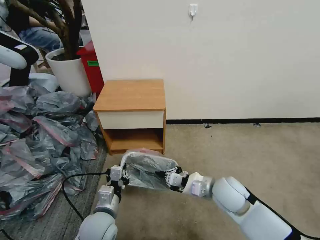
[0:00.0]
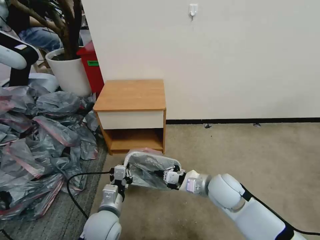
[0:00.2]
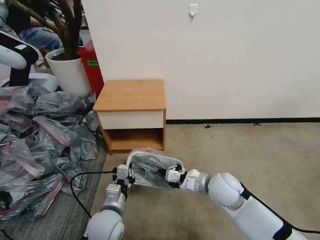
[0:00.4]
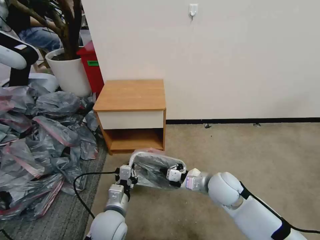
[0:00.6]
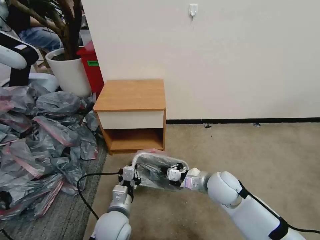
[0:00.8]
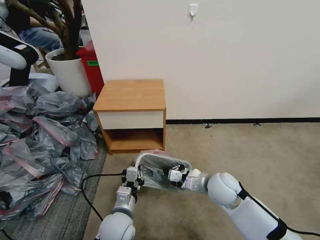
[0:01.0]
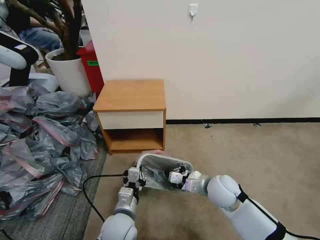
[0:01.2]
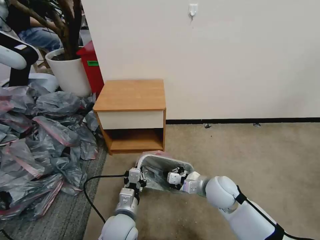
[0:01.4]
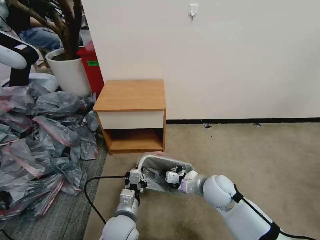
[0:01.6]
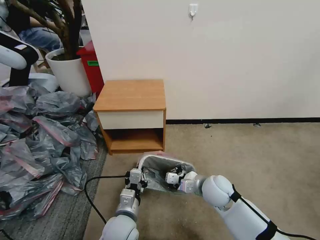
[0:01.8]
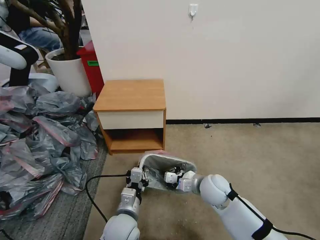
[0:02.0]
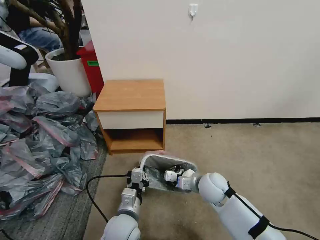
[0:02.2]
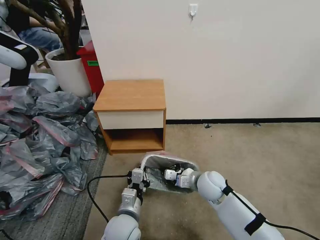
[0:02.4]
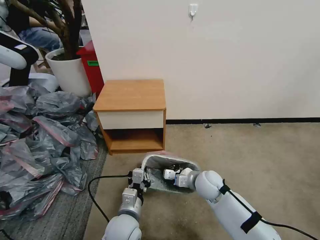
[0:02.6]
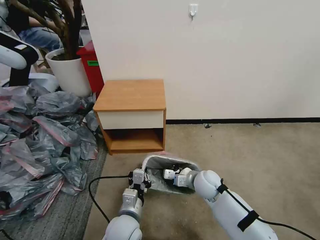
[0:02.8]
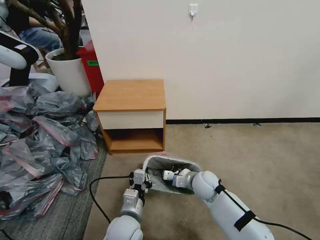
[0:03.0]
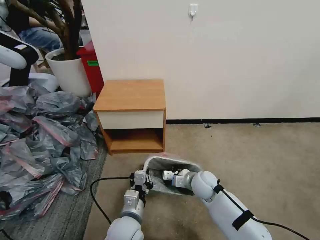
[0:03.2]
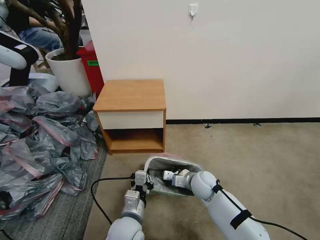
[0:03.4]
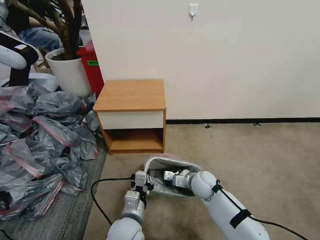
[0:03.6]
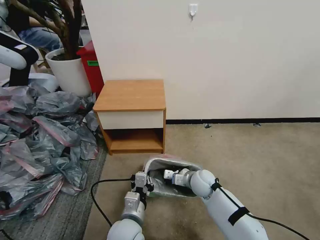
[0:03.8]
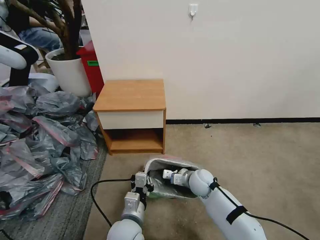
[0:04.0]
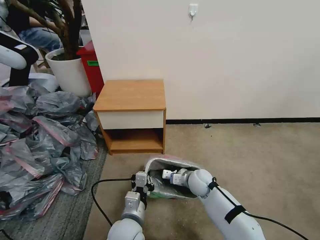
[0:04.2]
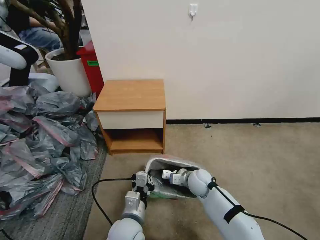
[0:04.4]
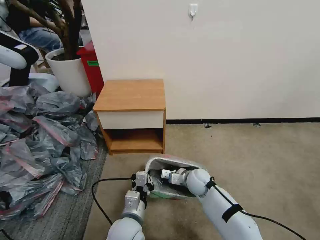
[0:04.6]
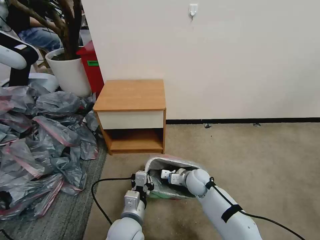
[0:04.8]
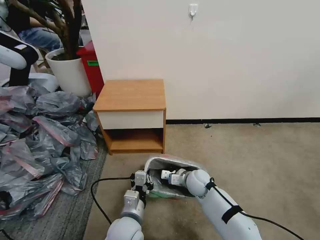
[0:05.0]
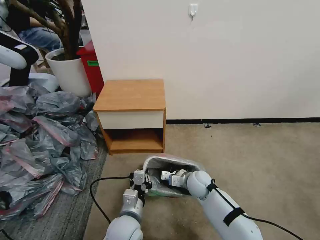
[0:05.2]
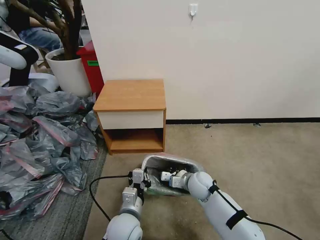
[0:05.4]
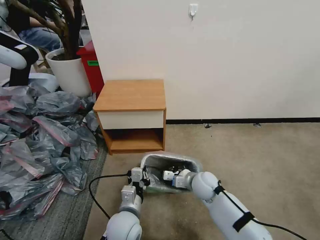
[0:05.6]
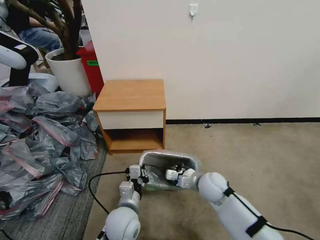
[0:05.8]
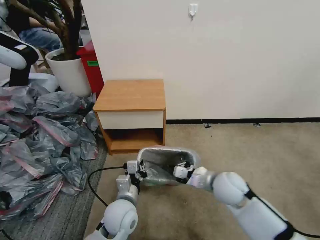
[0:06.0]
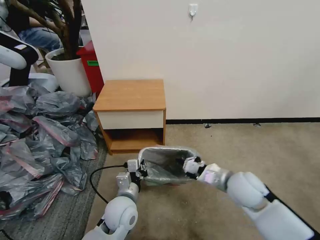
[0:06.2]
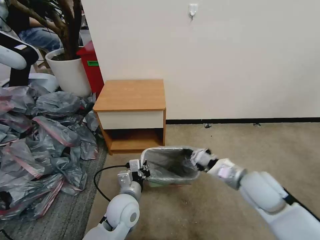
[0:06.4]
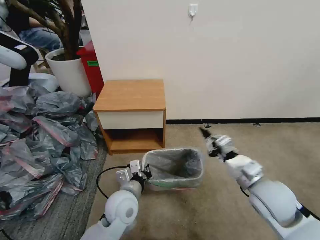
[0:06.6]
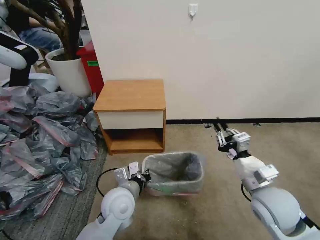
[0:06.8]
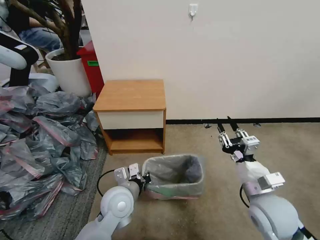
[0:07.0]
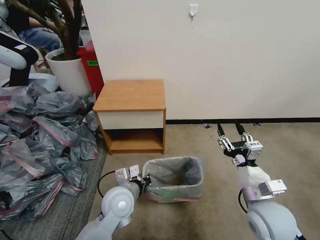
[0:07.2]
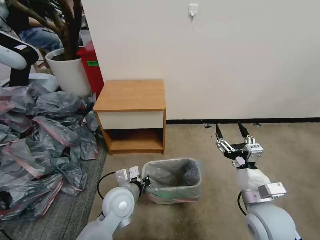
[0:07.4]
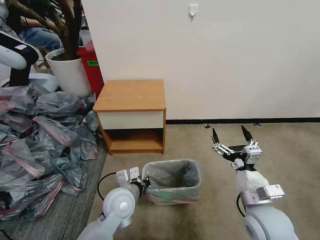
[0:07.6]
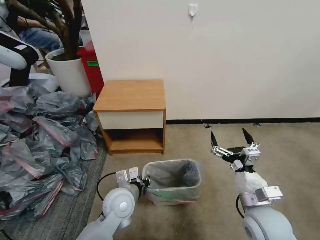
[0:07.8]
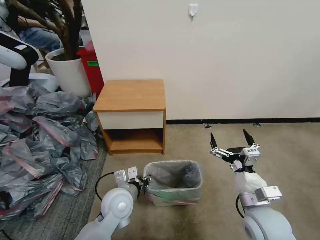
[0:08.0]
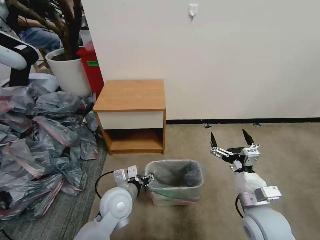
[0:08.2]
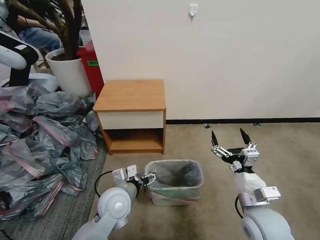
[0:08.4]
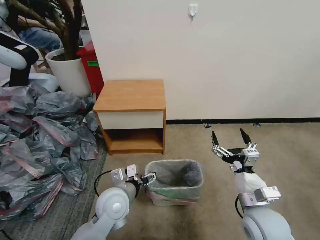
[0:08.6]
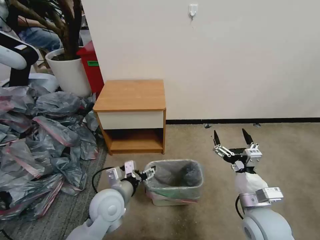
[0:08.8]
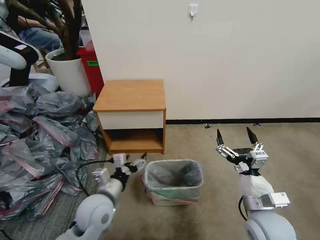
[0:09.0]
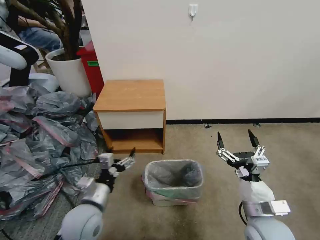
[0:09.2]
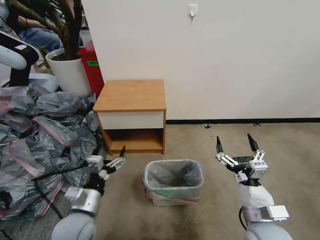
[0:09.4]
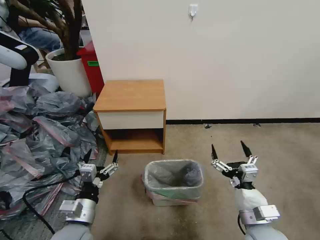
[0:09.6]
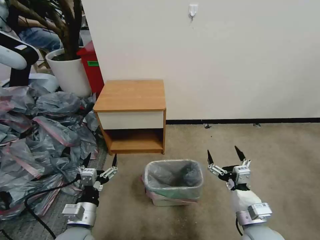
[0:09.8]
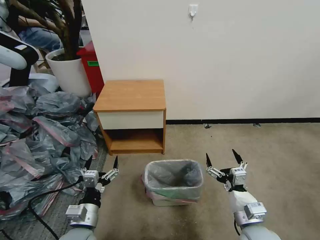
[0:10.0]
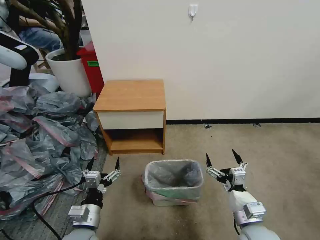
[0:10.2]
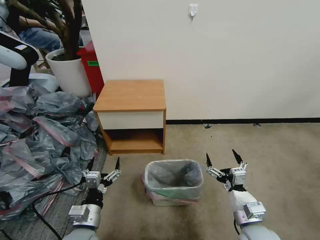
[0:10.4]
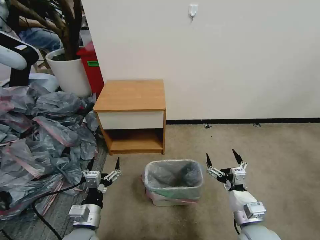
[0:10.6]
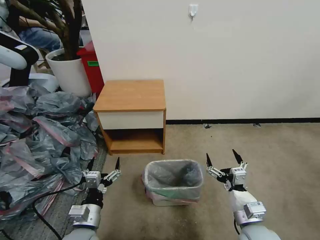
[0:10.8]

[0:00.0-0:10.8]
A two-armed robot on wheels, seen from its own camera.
Task of the whole recording: Pick up the garbage bag from the table and place it over the trash can.
0:00.0 to 0:01.6: The left gripper heads to the right, covering approximately 5 cm.
0:01.6 to 0:03.0: The right gripper goes some 5 cm downward.
0:03.0 to 0:04.6: The grippers make only small movements.
0:04.6 to 0:06.2: The right gripper goes approximately 20 cm upward, to the right and backward, while the left gripper travels forward by about 5 cm.
0:06.2 to 0:07.8: The right gripper shifts some 10 cm backward, and opens up.
0:07.8 to 0:09.2: The left gripper goes some 10 cm to the left and backward, and opens its fingers.
0:09.2 to 0:10.8: The left gripper heads downward, covering some 5 cm. Meanwhile the right gripper changes place by some 5 cm.

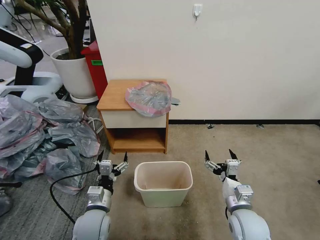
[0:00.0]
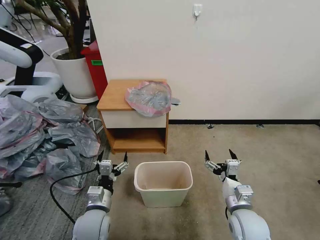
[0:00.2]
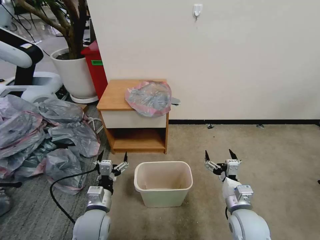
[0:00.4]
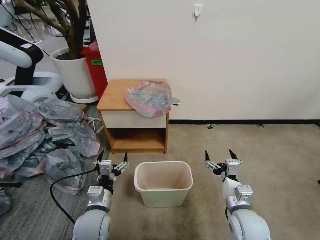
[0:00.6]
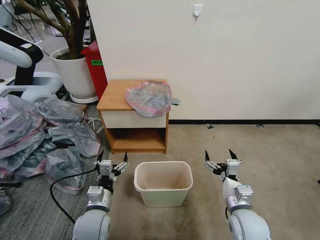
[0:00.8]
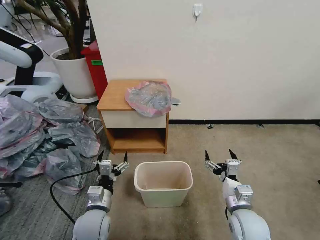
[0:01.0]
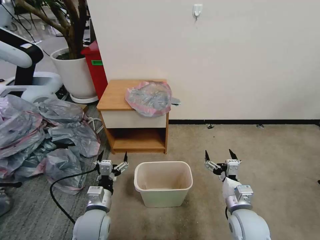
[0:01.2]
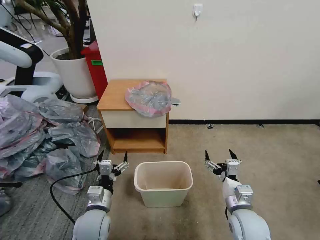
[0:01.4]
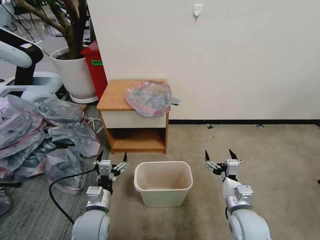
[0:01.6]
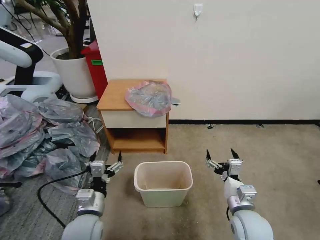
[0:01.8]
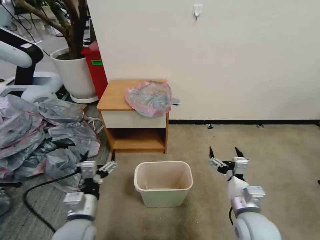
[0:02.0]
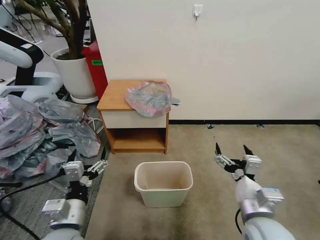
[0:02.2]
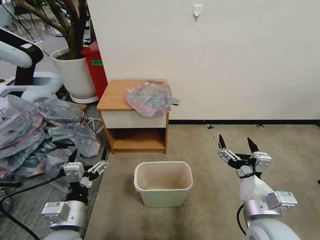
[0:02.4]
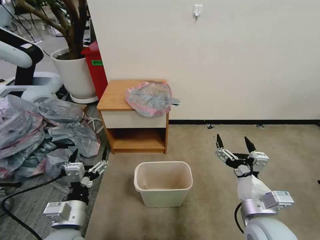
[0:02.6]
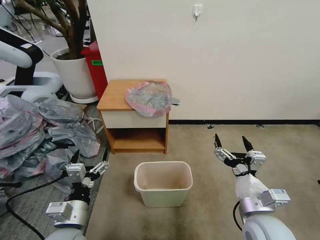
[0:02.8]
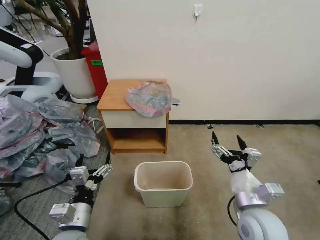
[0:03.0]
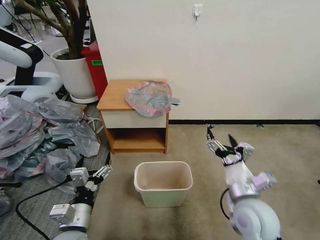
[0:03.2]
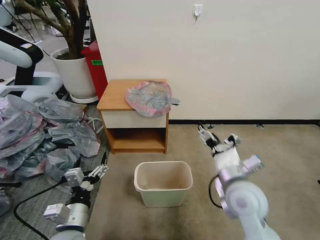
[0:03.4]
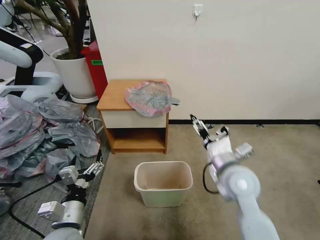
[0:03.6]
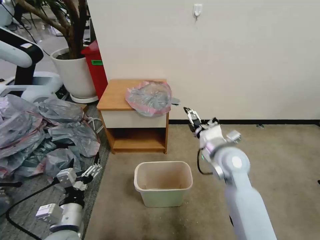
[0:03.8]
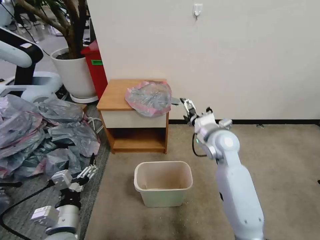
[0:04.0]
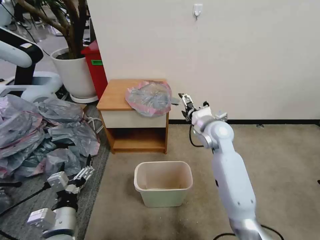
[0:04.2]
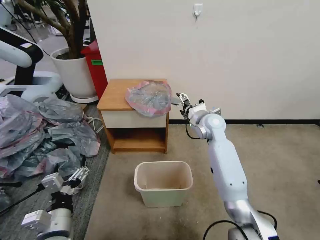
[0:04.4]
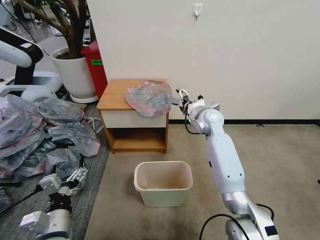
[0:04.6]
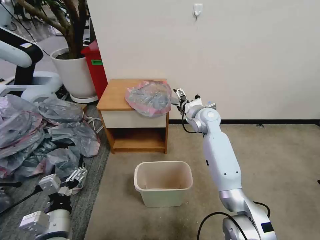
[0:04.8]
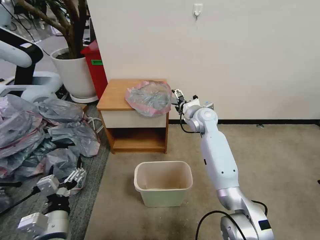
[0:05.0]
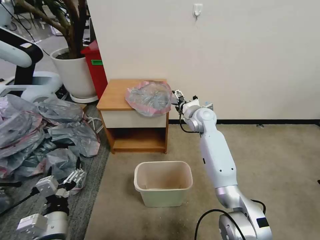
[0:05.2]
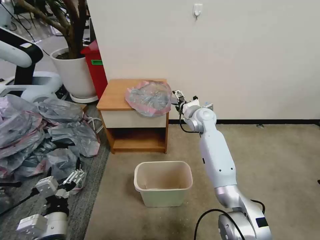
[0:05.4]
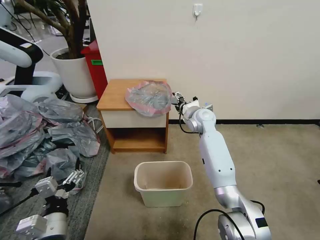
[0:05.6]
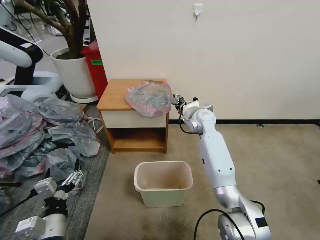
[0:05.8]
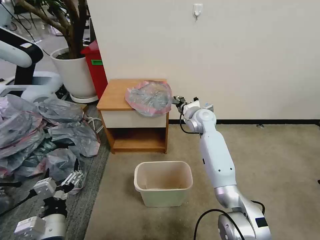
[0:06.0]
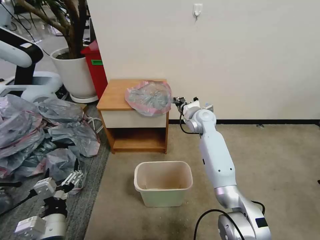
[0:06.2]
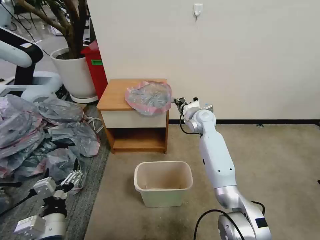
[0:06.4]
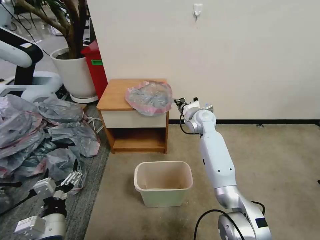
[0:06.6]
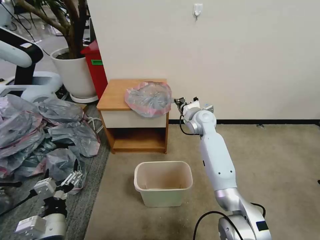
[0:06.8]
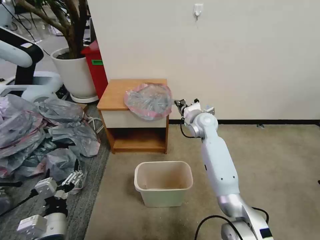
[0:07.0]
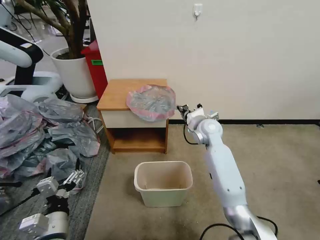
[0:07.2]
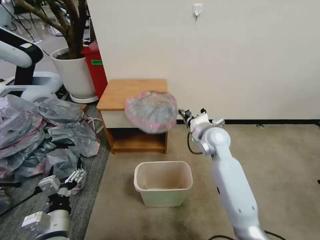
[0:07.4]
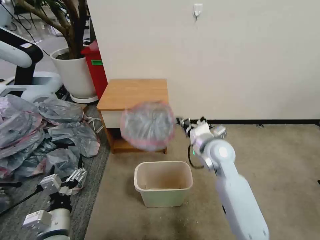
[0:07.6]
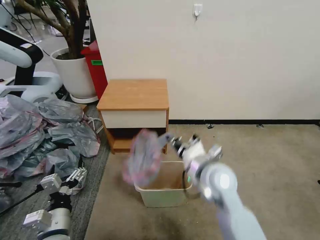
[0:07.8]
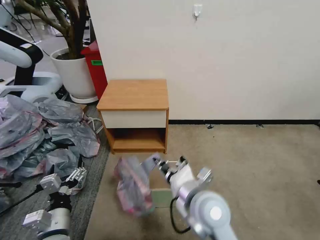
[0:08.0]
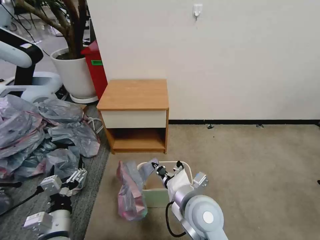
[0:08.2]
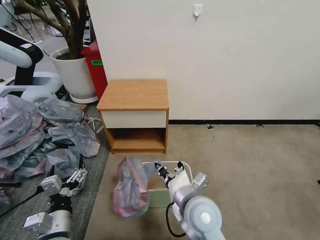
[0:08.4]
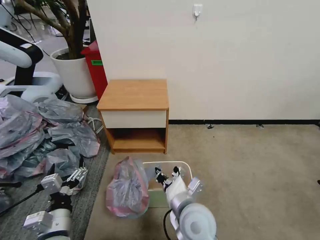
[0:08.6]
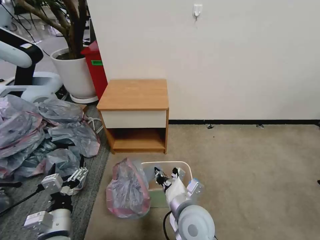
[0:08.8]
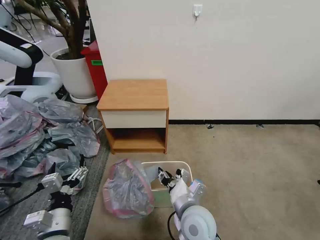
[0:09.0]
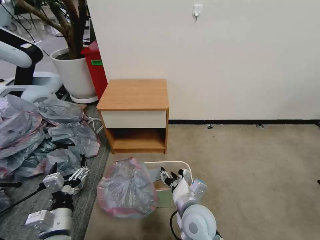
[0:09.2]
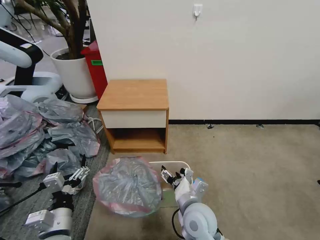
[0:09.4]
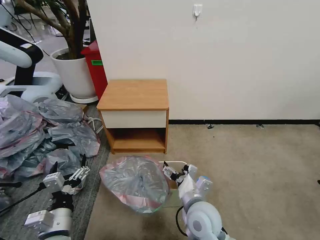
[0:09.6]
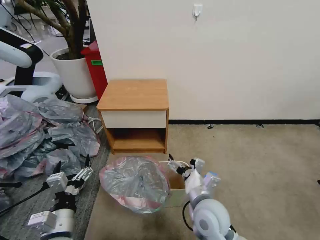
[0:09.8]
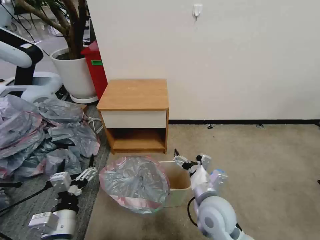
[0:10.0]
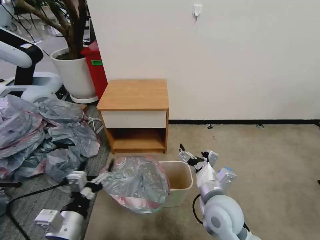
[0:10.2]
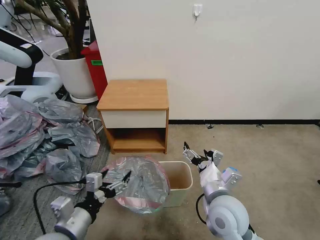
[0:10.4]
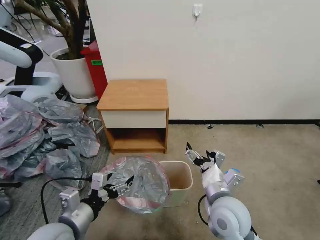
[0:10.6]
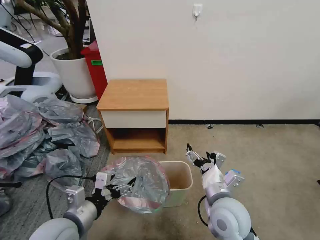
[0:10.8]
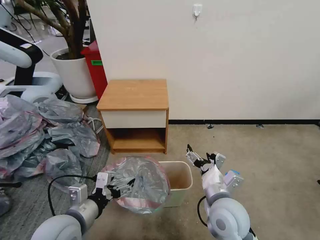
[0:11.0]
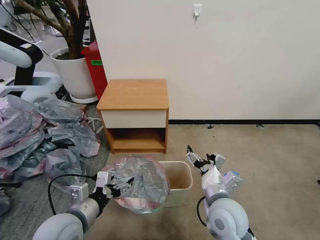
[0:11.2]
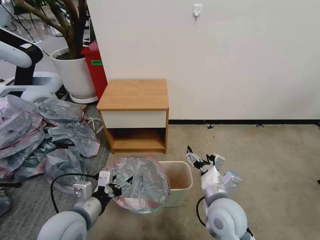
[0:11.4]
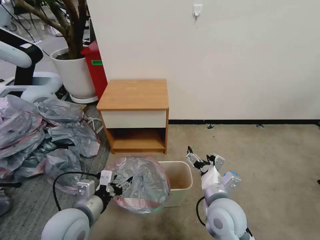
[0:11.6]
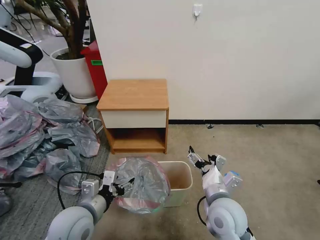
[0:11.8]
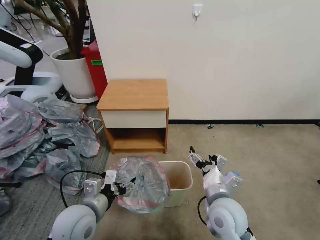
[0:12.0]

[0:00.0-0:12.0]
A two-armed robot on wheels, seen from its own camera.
Task of the whole recording: Pick up the garbage bag from the table and place it over the trash can.
0:01.6 to 0:03.0: The right gripper goes about 10 cm upward; the left gripper heads backward and upward, covering approximately 10 cm.
0:03.0 to 0:04.4: The right gripper heads forward, covering roughly 30 cm.
0:04.4 to 0:06.0: The right gripper closes.
0:06.0 to 0:07.6: The right gripper shifts about 20 cm backward, and closes.
0:07.6 to 0:09.0: The right gripper shifts roughly 20 cm backward, to the left and downward, and opens up.
0:09.0 to 0:10.4: The right gripper is displaced to the right by about 5 cm, and opens; the left gripper heads upward, covering some 5 cm.
0:10.4 to 0:12.0: The left gripper heads forward, covering about 5 cm.
